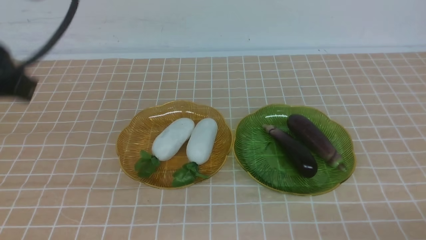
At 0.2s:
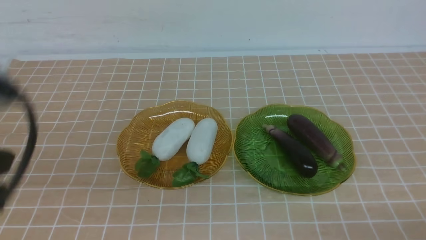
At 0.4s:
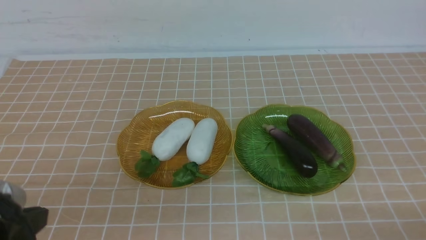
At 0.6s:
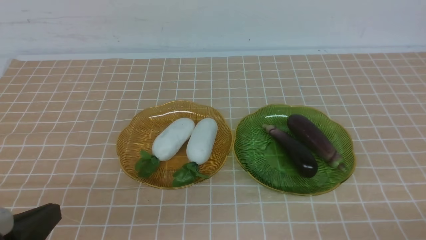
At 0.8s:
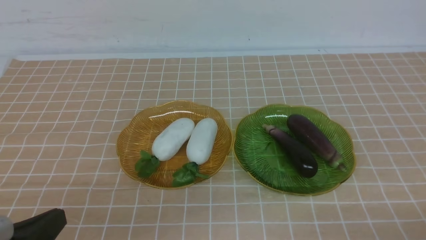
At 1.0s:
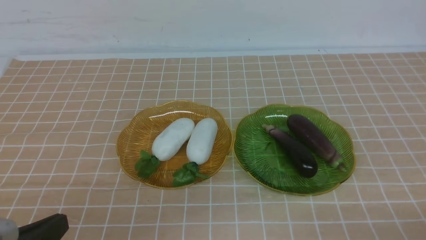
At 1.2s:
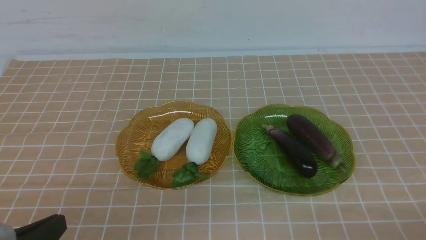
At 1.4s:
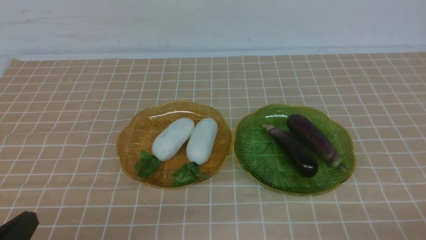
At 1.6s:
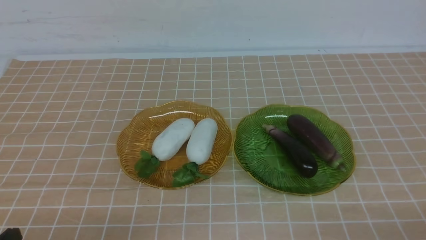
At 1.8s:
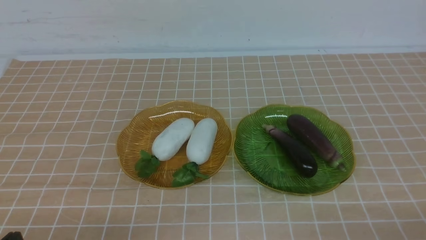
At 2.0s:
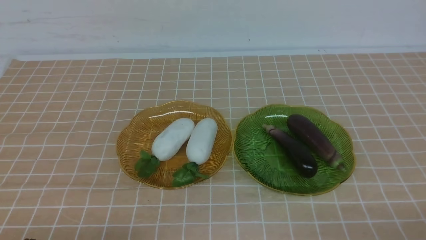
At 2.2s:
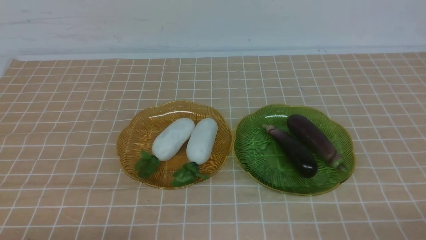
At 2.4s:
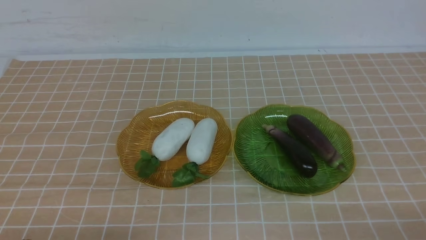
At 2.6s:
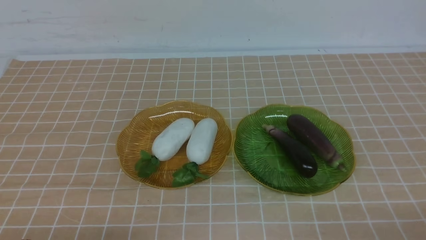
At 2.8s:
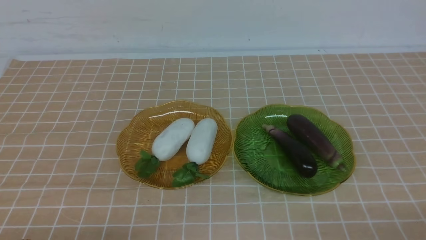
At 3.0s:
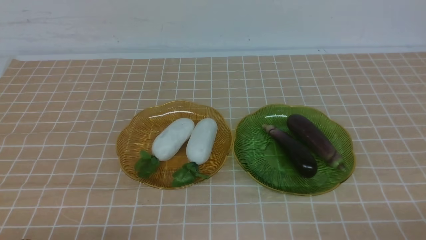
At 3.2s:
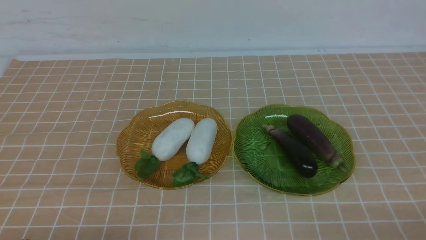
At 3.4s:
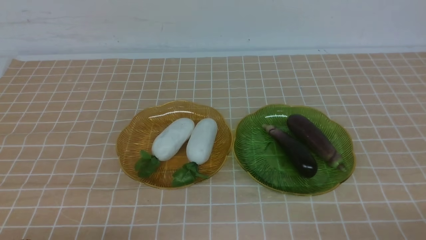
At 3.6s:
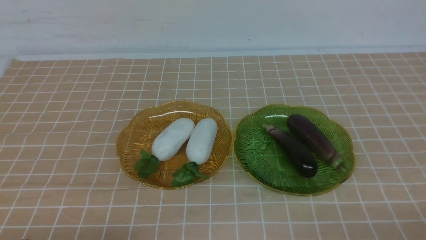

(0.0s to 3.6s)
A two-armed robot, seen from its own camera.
0.0s - 1.8s: The left gripper shifts about 30 cm downward and backward.
1.8s - 3.6s: Both grippers stay about where they are.

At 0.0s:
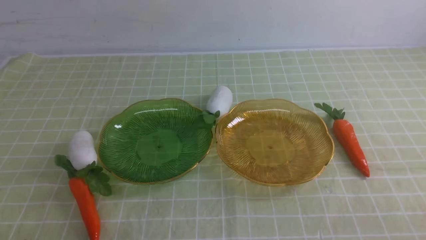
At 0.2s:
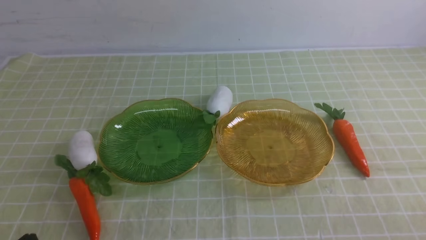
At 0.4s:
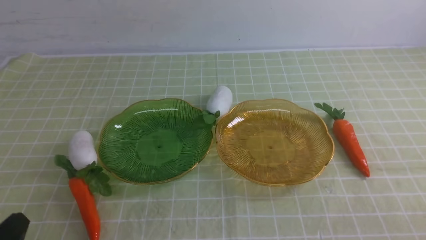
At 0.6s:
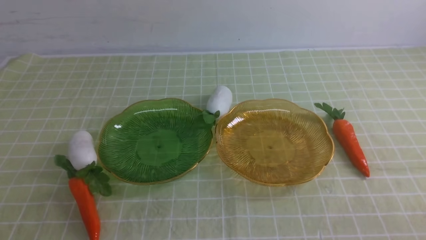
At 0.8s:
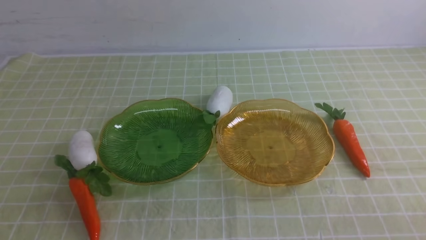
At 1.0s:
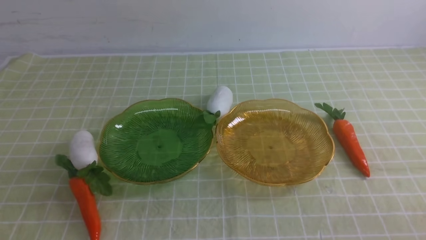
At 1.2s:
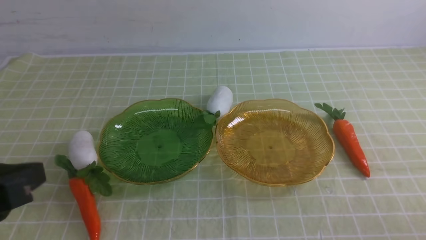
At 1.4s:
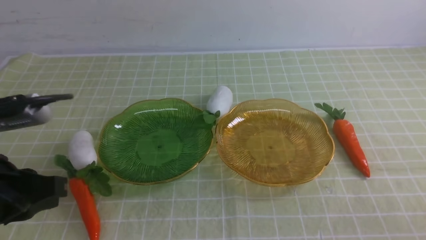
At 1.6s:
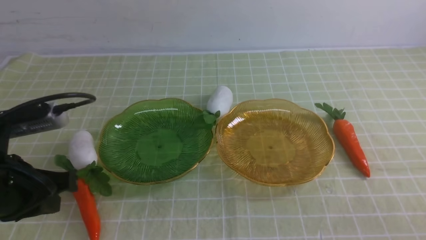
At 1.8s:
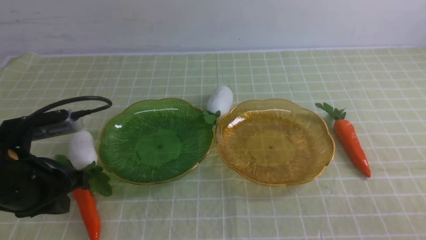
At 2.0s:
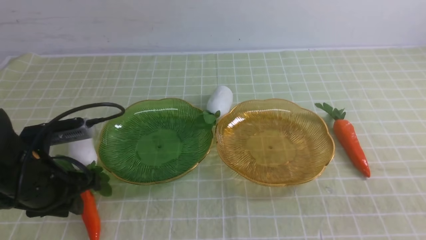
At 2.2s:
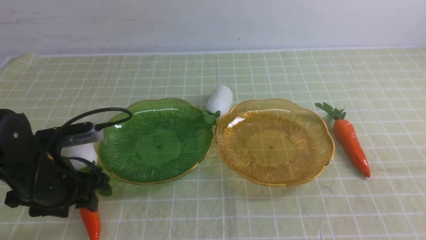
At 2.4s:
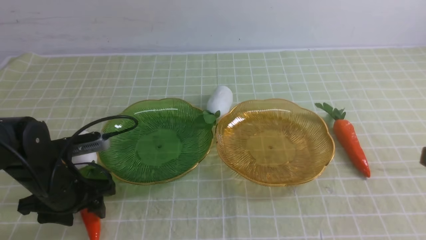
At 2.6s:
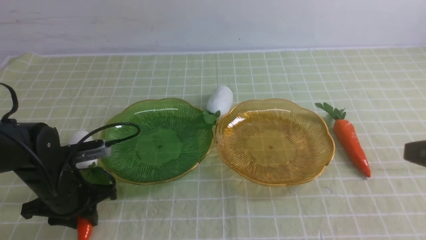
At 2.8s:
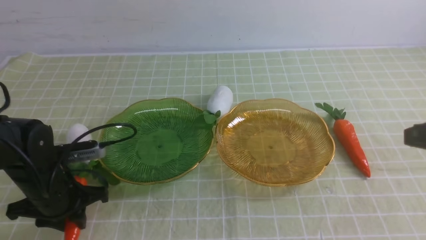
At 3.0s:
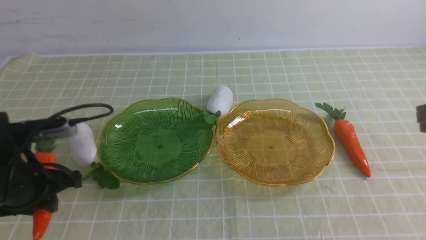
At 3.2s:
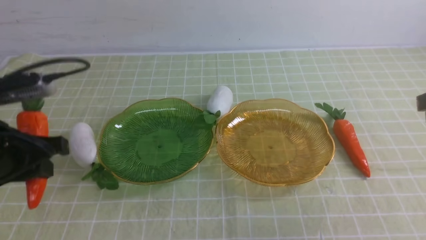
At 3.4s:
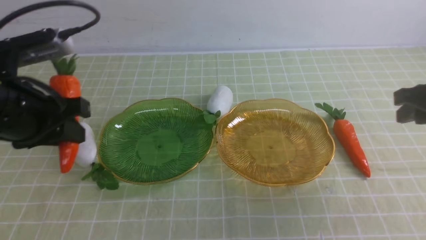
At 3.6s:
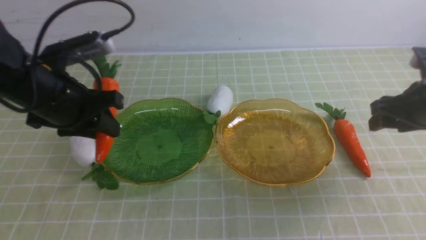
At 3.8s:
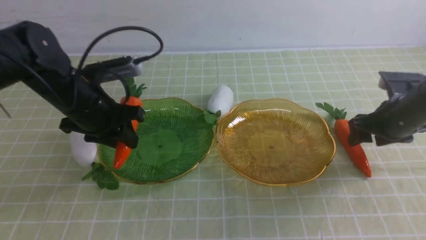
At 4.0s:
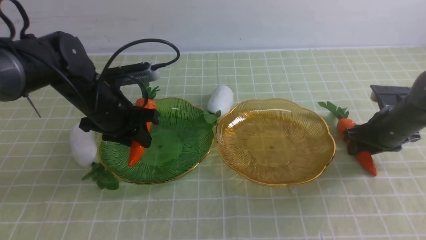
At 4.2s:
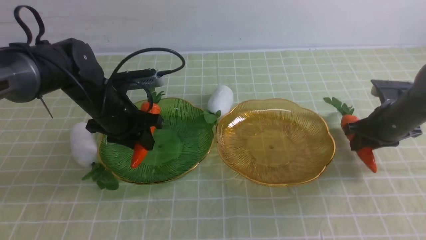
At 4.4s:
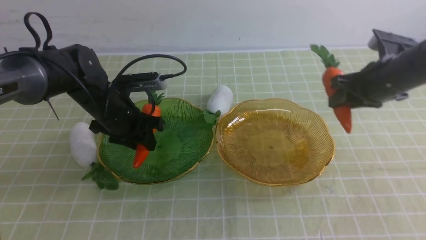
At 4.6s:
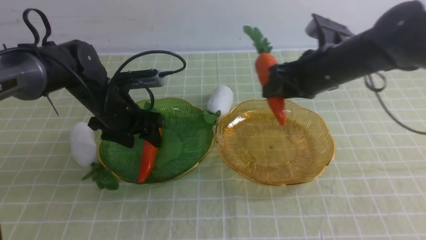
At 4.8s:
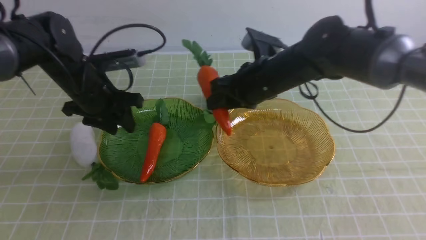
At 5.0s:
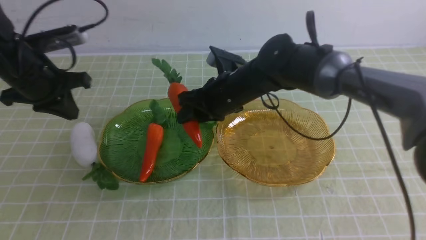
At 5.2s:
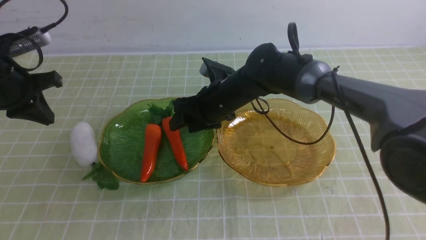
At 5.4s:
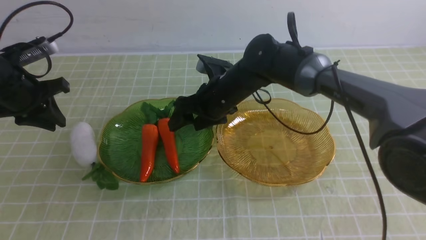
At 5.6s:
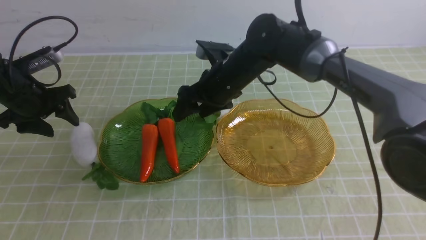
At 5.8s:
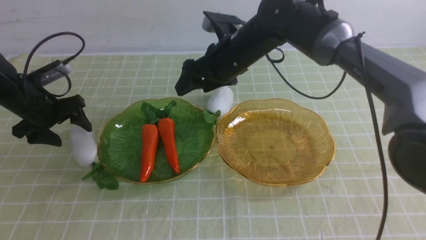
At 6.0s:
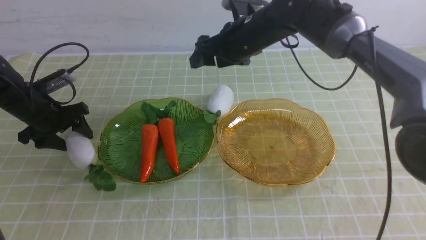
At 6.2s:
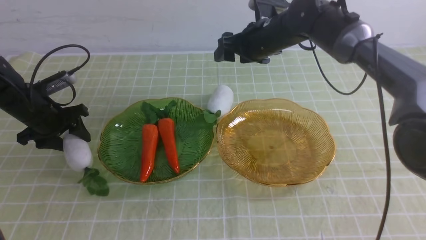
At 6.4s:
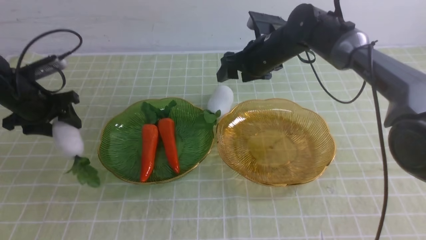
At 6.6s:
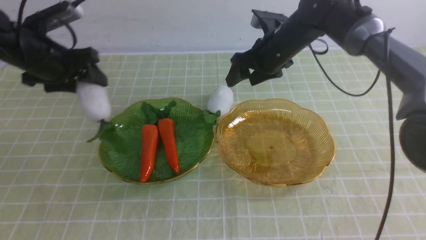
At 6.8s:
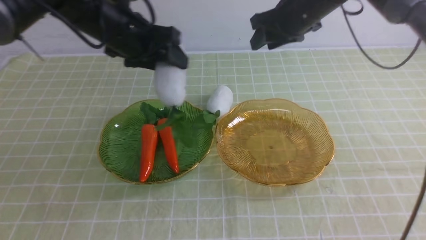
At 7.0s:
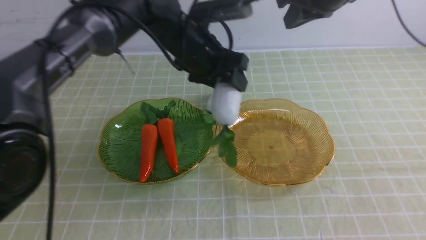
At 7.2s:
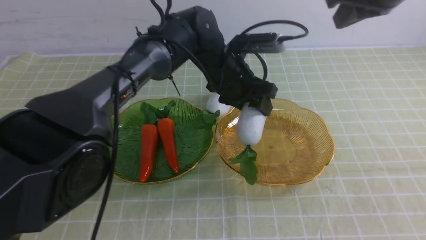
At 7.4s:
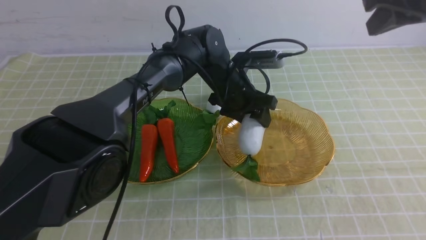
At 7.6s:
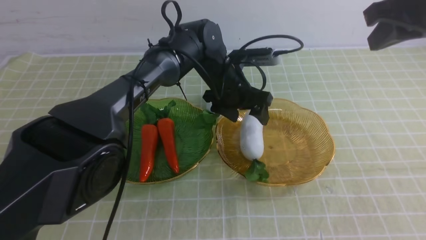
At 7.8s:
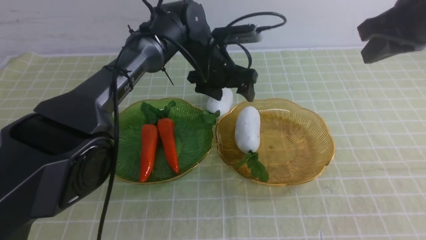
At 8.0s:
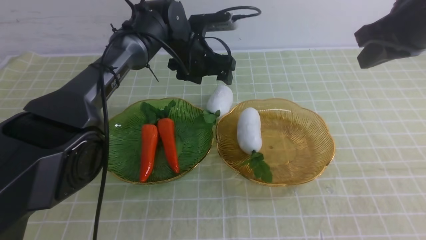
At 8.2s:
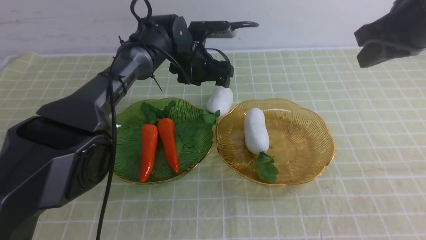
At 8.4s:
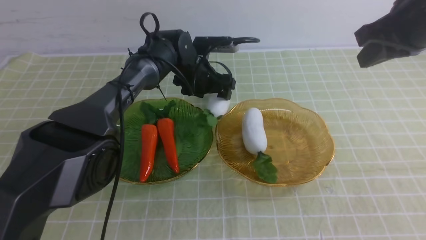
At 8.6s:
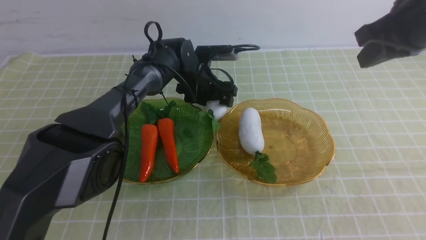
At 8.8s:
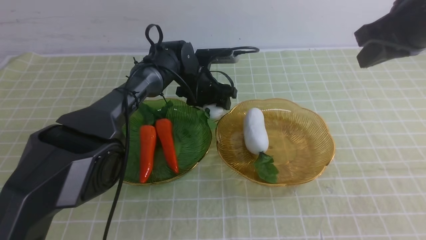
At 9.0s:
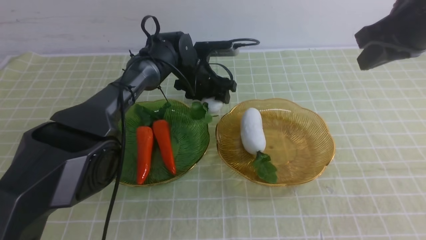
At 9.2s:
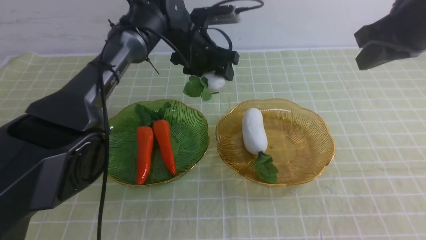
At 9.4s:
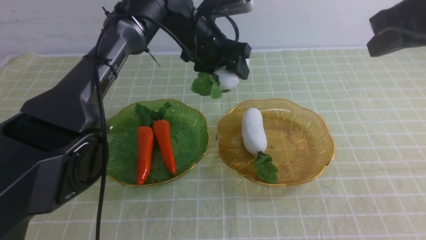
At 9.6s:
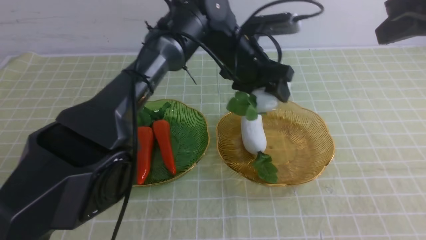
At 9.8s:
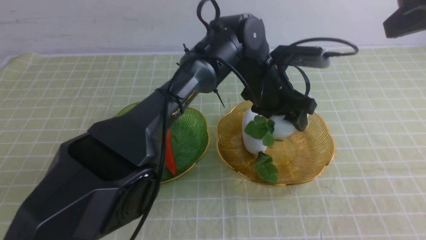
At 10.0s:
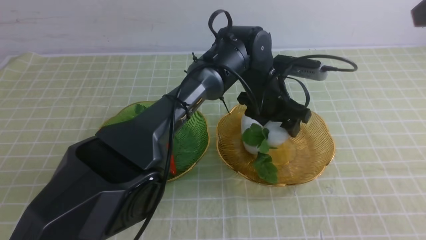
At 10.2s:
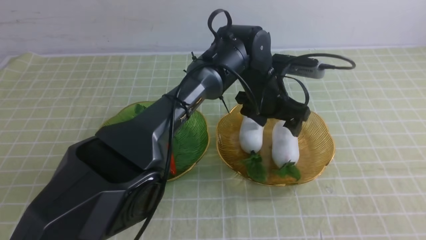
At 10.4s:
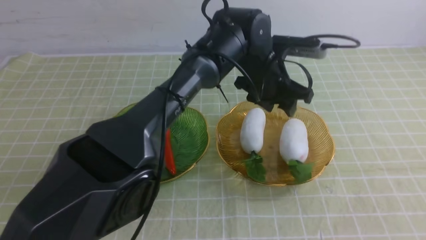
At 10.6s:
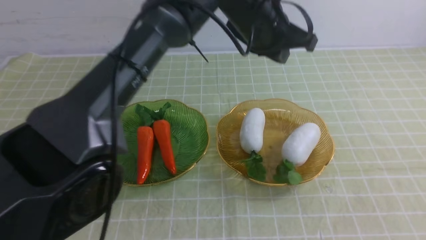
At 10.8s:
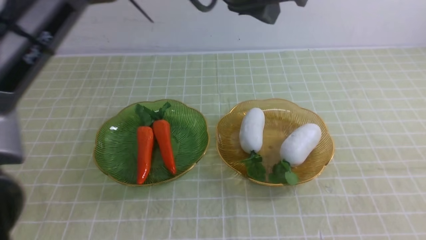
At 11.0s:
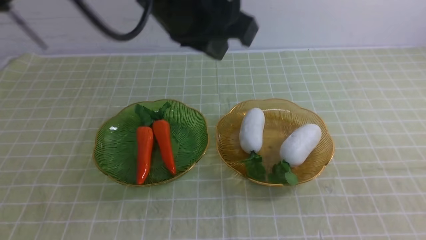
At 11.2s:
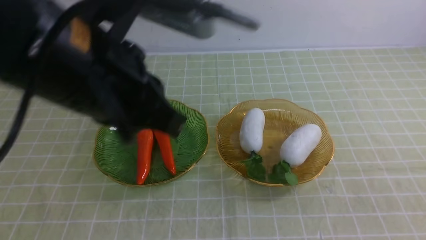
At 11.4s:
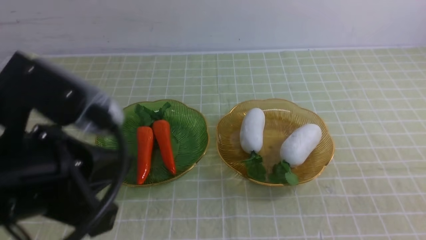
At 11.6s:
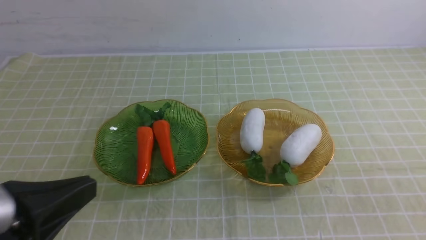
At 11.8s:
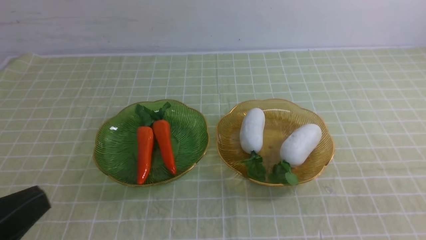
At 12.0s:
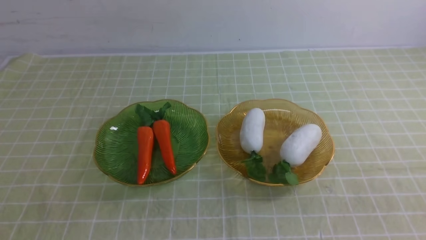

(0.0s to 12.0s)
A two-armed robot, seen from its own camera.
Step, 0.0s - 4.4s: use the left arm to grab a carrot and put it into the left plate.
Step, 4.6s - 6.2s: use the right arm to grab a carrot and put it into the left plate.
0.0s - 1.6s: The left gripper is displaced forward and upward by roughly 15 cm.
1.6s - 3.0s: The right gripper goes some 20 cm forward and upward, while the left gripper moves roughly 10 cm downward and comes back.
3.0s - 4.4s: The right gripper goes approximately 20 cm forward, downward and to the left, and opens and closes again, while the left gripper heads forward and to the right, covering approximately 15 cm.
4.4s - 6.0s: The left gripper shifts some 15 cm to the left, and closes and opens again. The right gripper travels to the left and forward by about 20 cm, and opens up.
6.0s - 7.6s: The right gripper is displaced to the right, backward and upward by about 25 cm, and closes up; the left gripper goes approximately 35 cm to the right.
7.6s - 9.0s: The left gripper moves forward, about 5 cm.
9.0s - 10.4s: The right gripper moves backward and upward, about 25 cm. The left gripper goes some 15 cm to the right, backward and upward.
10.4s - 12.0s: The right gripper heads downward and backward, covering about 20 cm, while the left gripper travels backward and to the left by about 50 cm, and closes.
